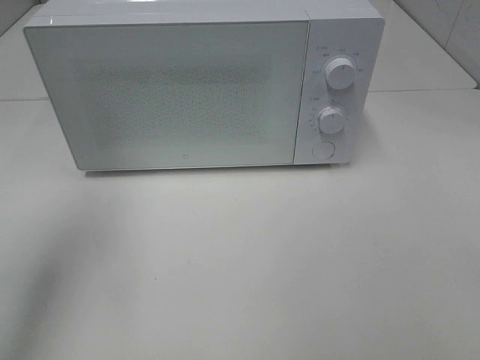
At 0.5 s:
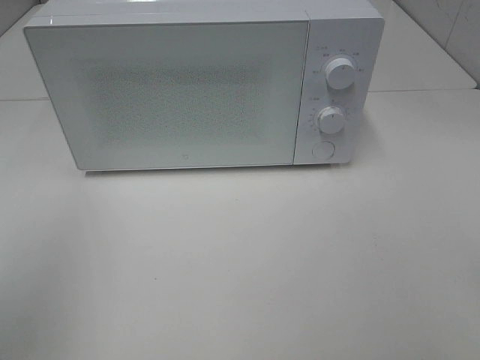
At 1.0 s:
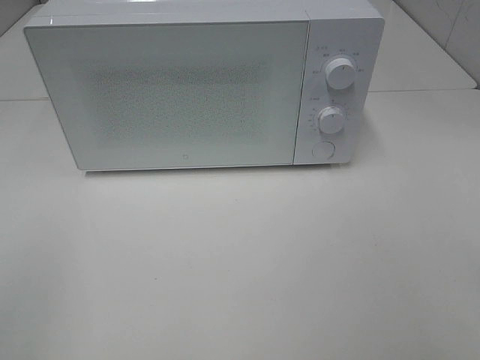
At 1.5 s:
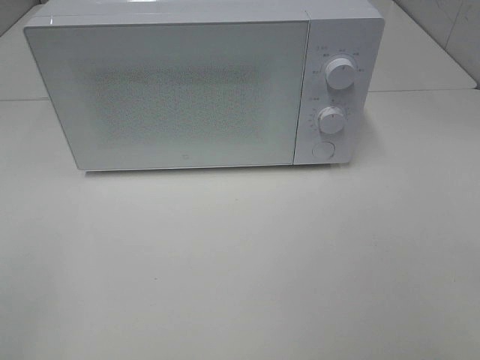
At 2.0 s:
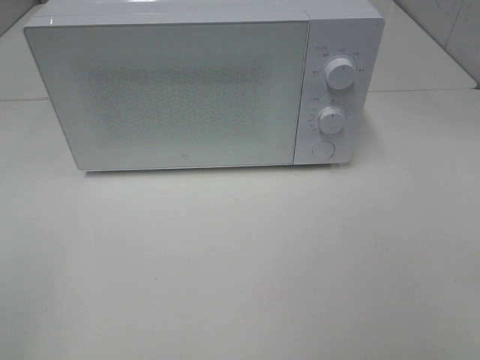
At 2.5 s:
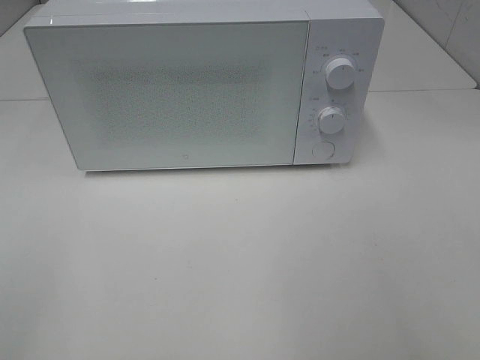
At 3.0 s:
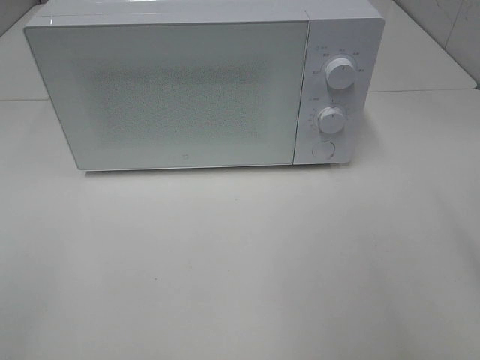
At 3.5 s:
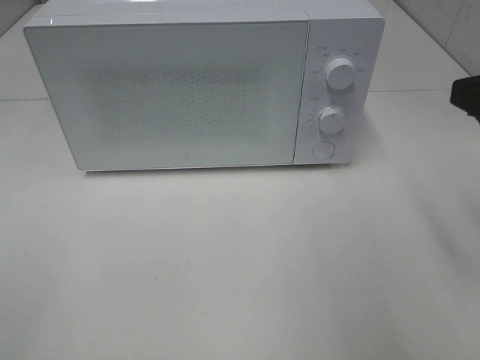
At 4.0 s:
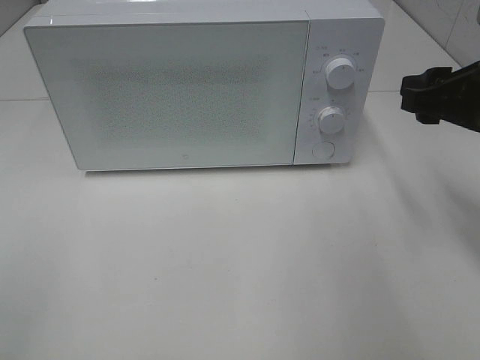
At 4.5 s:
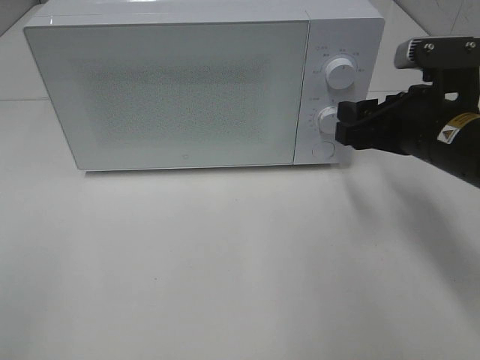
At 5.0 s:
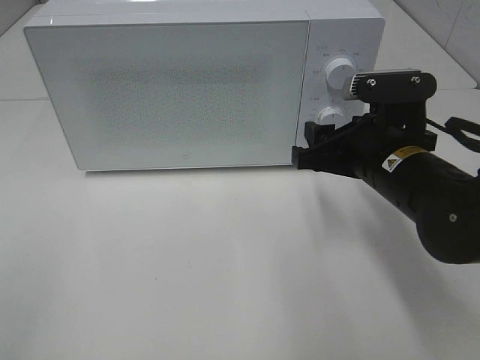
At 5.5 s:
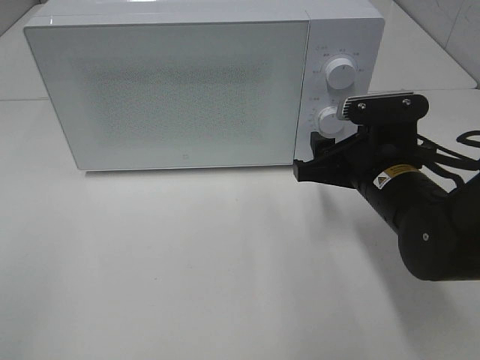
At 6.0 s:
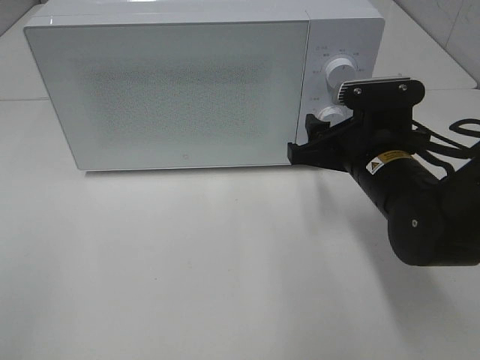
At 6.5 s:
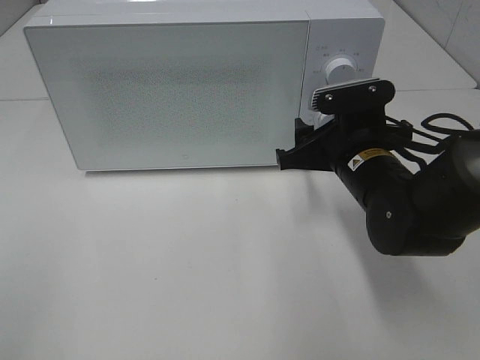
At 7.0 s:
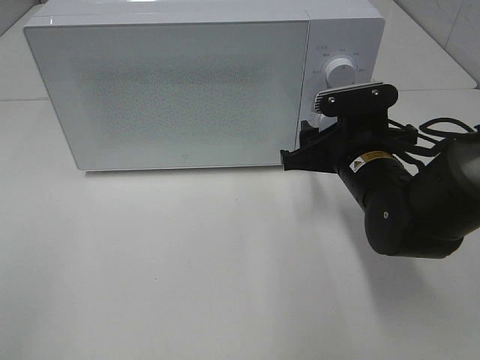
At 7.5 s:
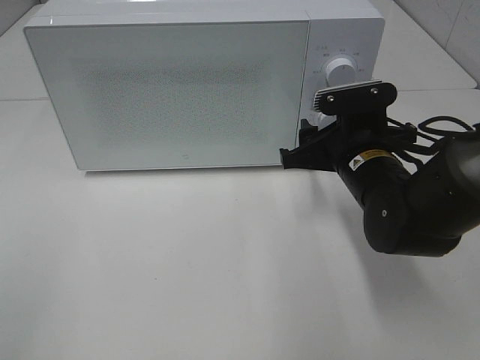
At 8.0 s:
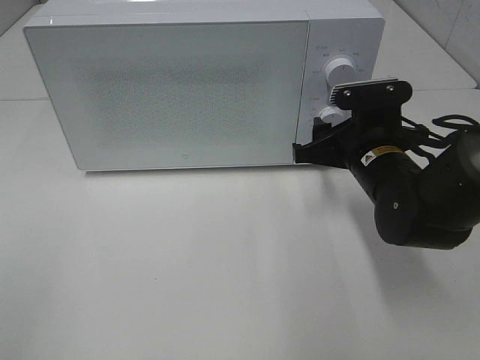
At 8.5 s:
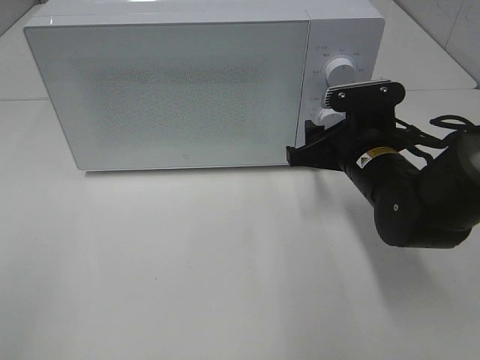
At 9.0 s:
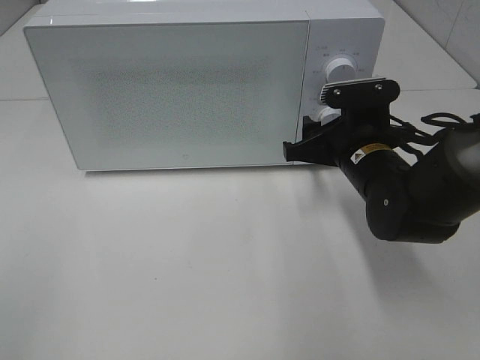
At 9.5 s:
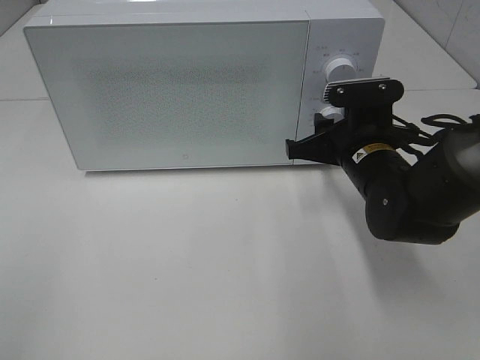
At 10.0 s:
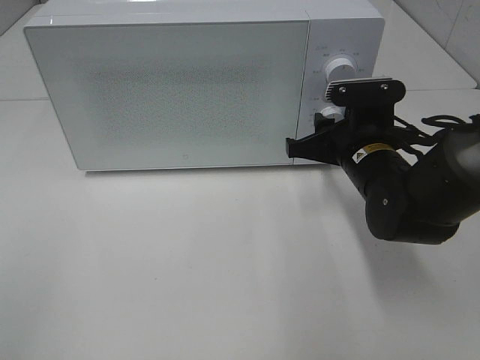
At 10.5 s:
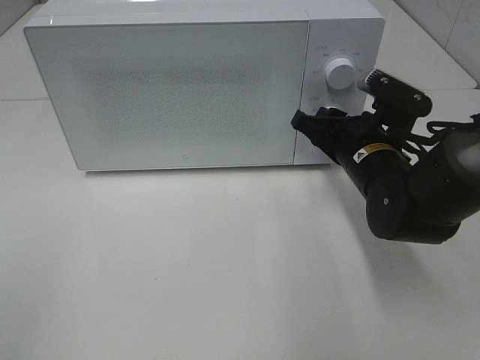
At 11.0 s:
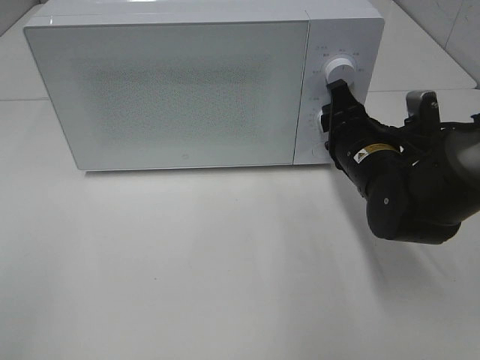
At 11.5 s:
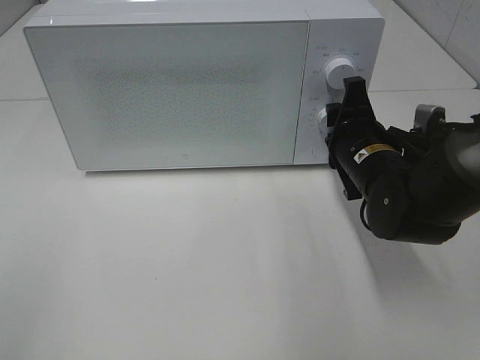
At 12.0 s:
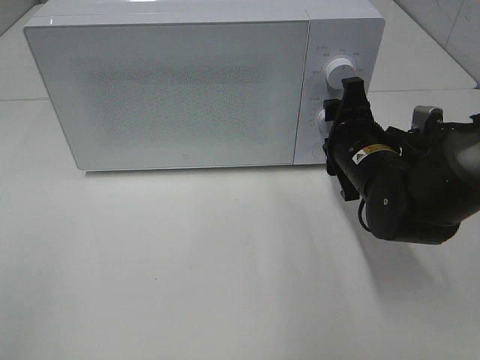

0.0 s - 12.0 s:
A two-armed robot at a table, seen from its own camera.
Task of the whole recording: Heat the burger.
0.0 s - 2.0 s: The left gripper goes about 25 cm backward.
2.0 s - 4.0 s: The right gripper moves forward, approximately 25 cm.
4.0 s - 6.0 s: The right gripper shifts approximately 15 cm to the left and downward.
6.0 s - 8.0 s: The grippers move only a little.
8.0 s - 10.0 s: The two grippers keep their place.

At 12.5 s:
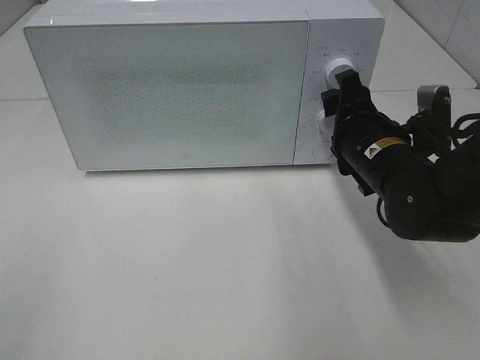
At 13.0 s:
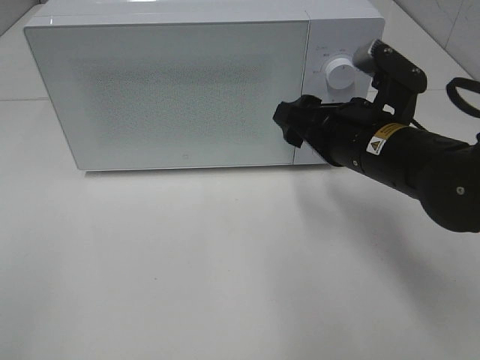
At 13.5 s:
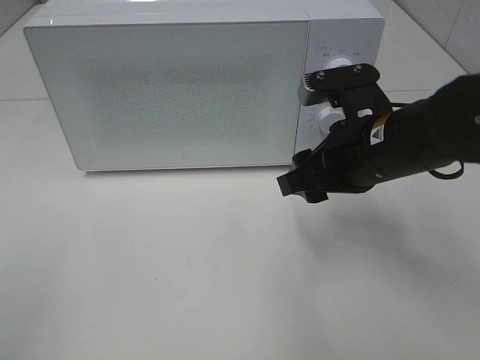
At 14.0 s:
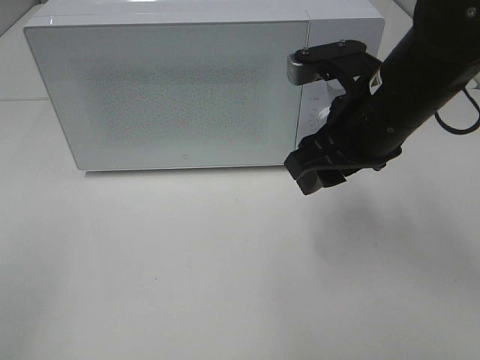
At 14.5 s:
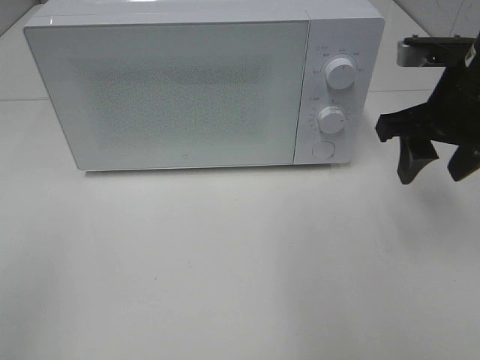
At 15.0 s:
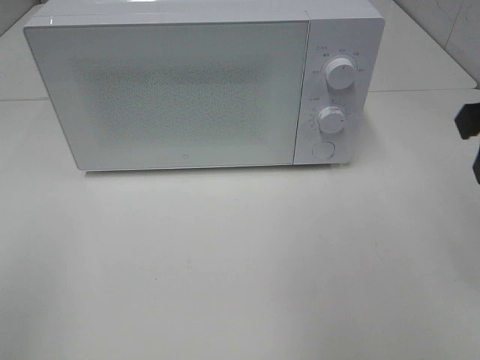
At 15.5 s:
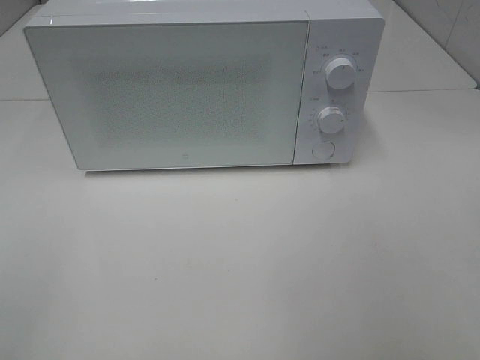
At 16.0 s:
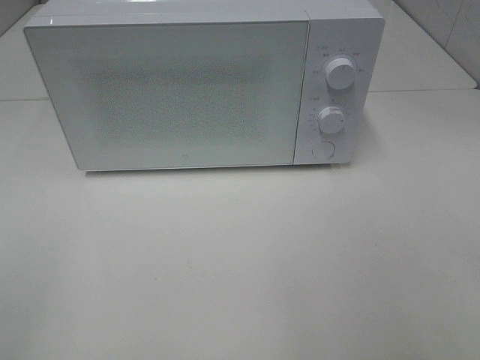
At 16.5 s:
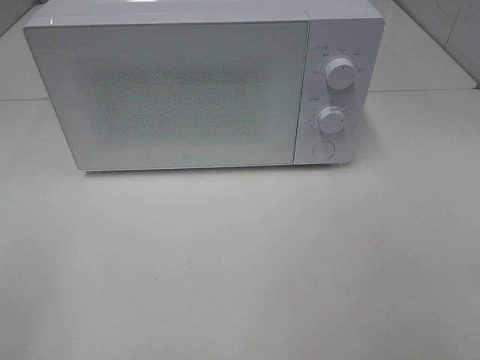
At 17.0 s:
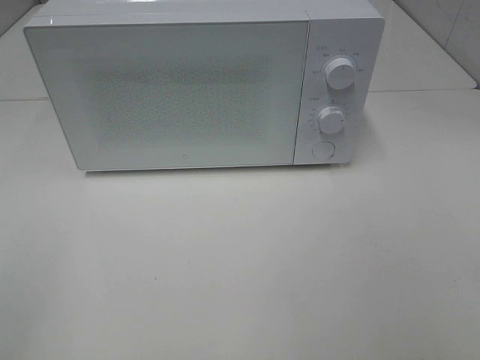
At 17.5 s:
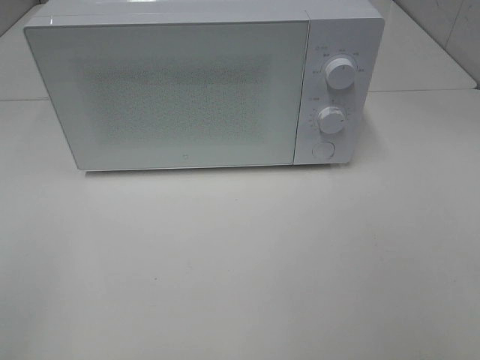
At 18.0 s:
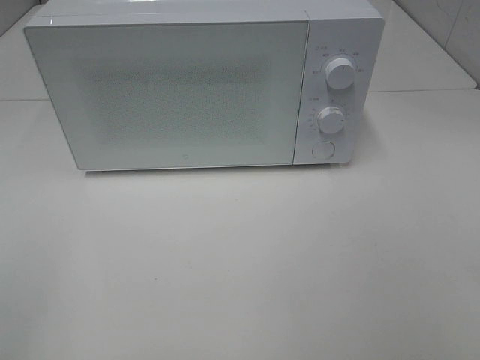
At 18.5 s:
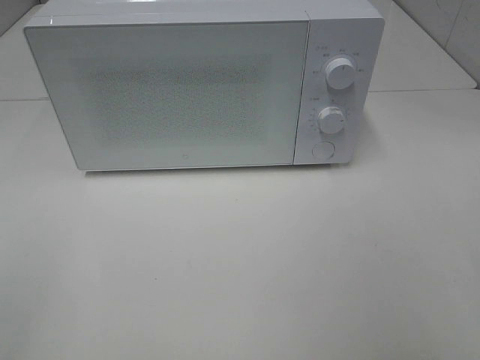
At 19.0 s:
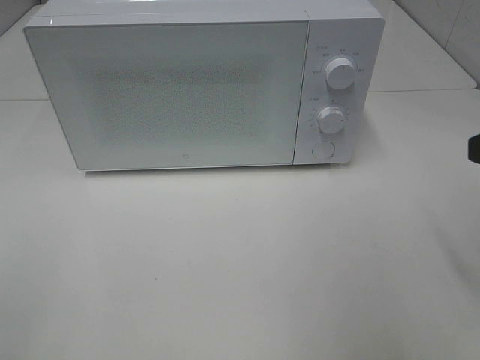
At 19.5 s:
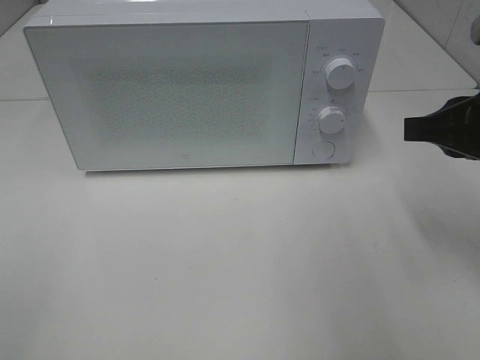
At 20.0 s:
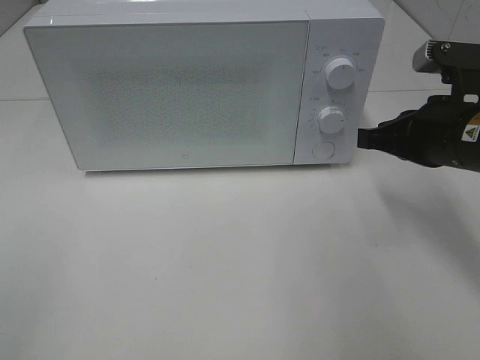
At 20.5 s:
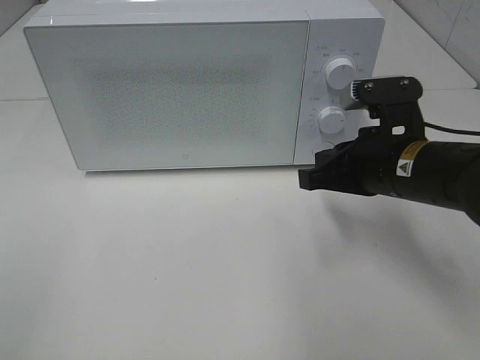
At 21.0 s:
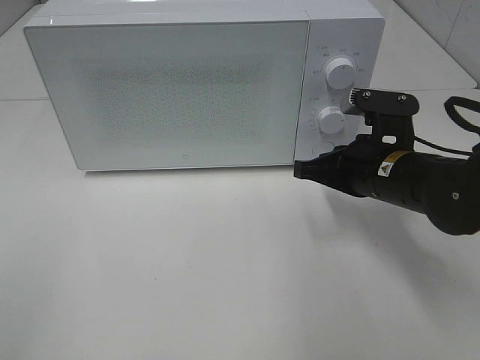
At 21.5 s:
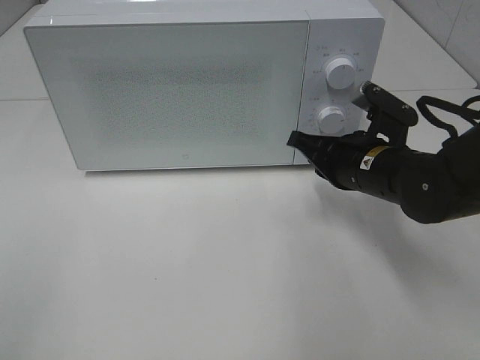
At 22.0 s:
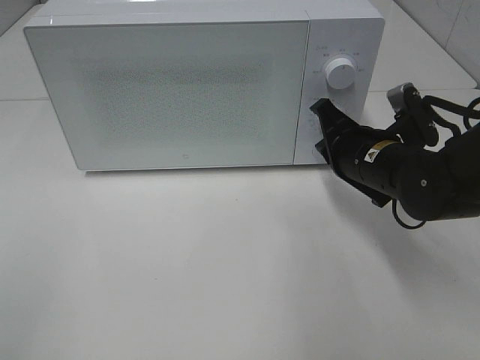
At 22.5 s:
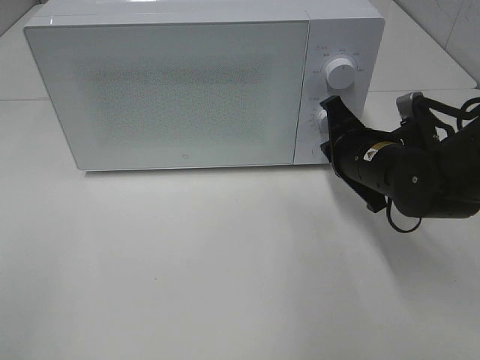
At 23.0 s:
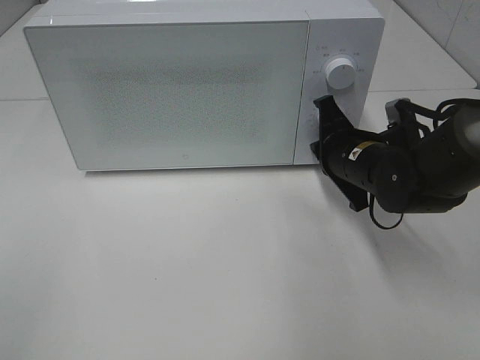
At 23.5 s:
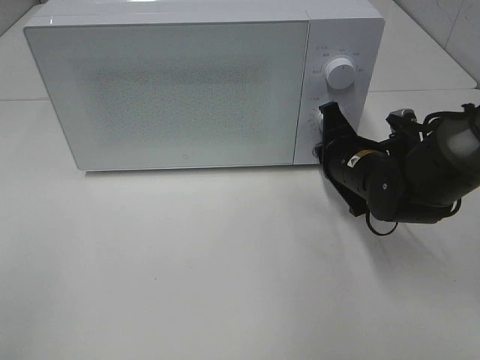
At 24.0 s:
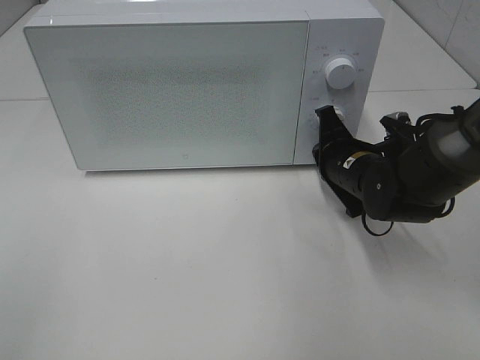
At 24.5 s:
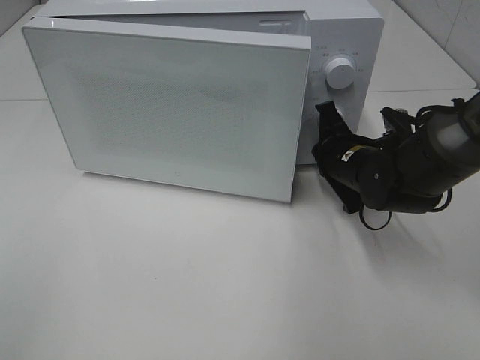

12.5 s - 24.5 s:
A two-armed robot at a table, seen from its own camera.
Task of the whole recording: Heat the burger.
12.5 s - 14.5 s: The right gripper is displaced upward and to the right by approximately 10 cm.
14.5 s - 16.5 s: The right gripper shifts roughly 30 cm backward.
18.5 s - 20.5 s: The right gripper moves forward, downward and to the left, some 25 cm, and closes its fingers.
20.5 s - 22.5 s: The right gripper travels forward by roughly 5 cm.
22.5 s - 24.5 s: The grippers make only small movements.

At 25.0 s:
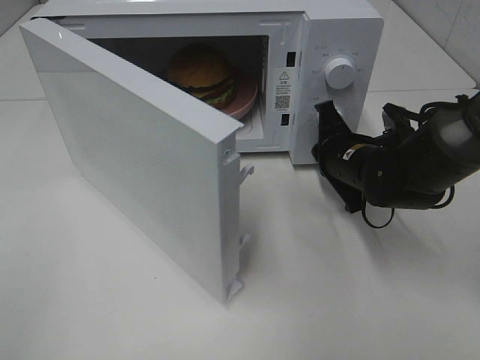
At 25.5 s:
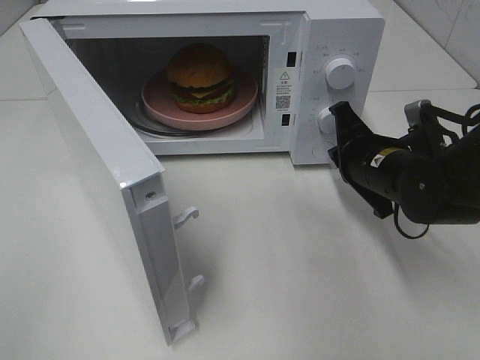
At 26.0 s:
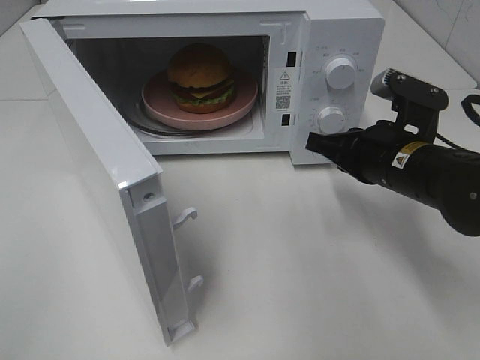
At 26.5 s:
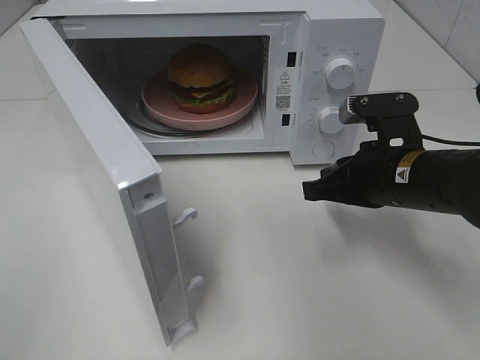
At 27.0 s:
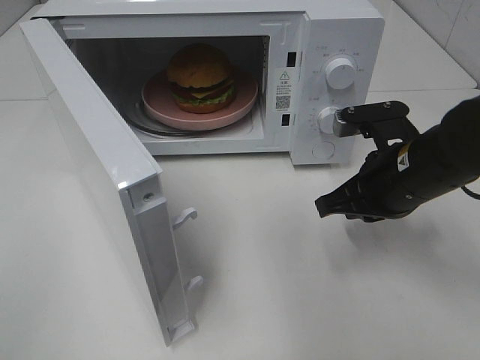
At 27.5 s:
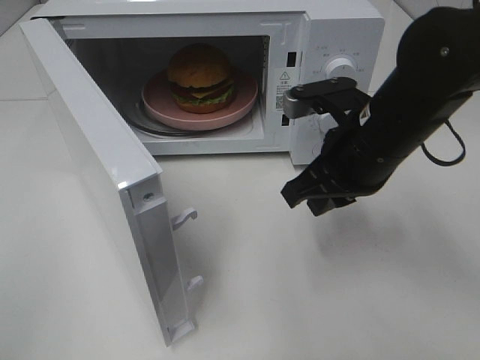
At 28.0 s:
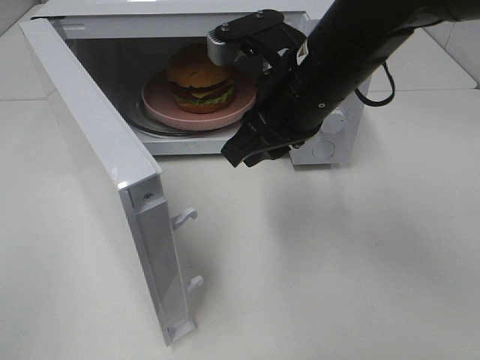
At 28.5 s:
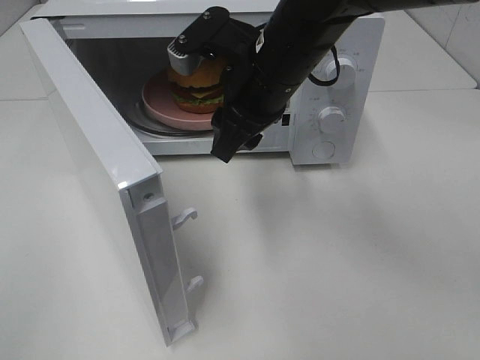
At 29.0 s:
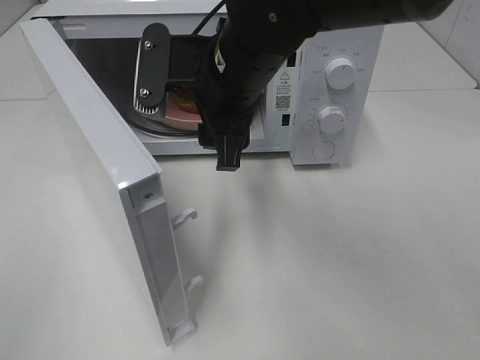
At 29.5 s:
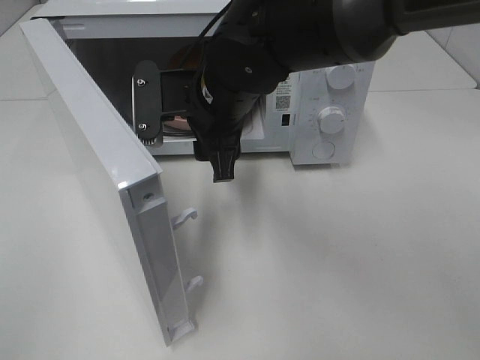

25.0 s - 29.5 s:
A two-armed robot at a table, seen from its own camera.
Task of the whole recording: Heat the burger.
25.0 s - 27.0 s: The right gripper is displaced backward and upward by about 10 cm.
27.0 s - 29.5 s: The right gripper goes approximately 20 cm to the left, and opens.
